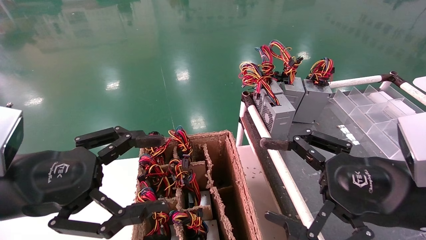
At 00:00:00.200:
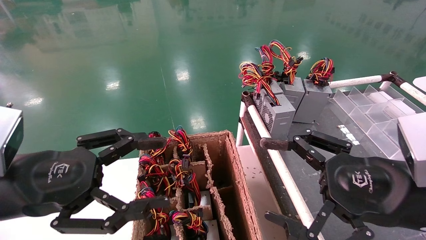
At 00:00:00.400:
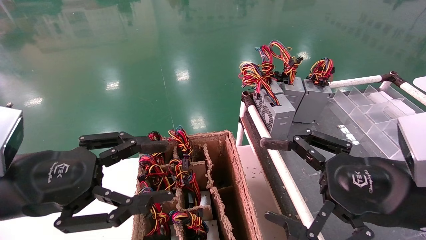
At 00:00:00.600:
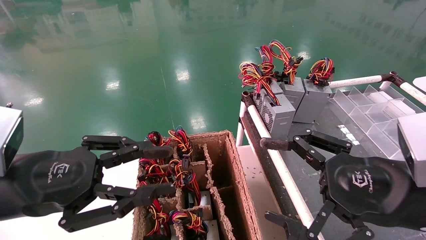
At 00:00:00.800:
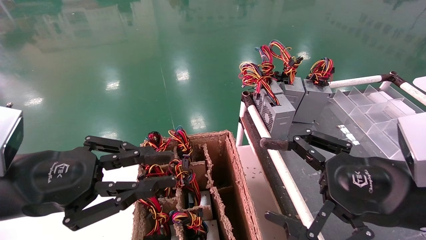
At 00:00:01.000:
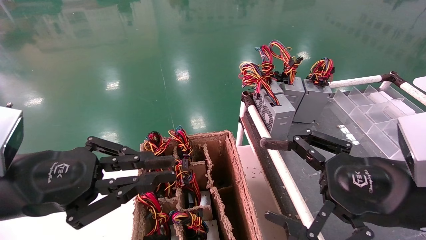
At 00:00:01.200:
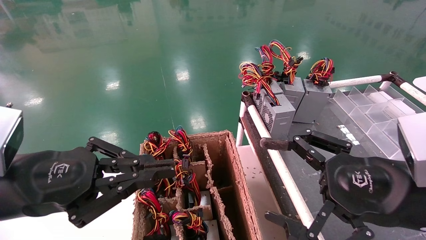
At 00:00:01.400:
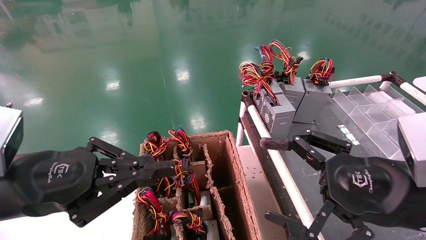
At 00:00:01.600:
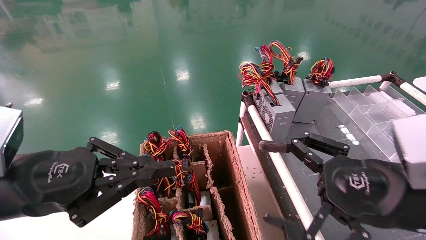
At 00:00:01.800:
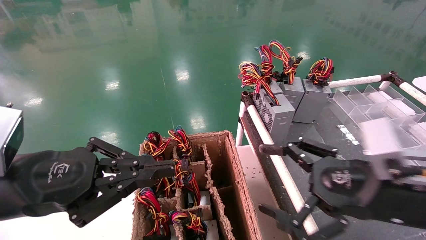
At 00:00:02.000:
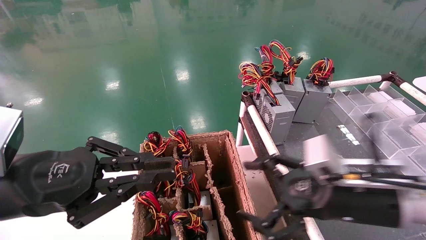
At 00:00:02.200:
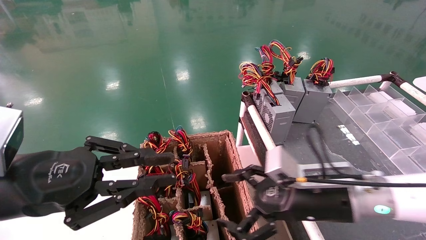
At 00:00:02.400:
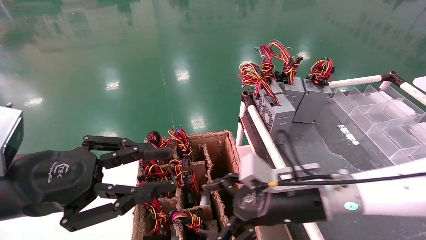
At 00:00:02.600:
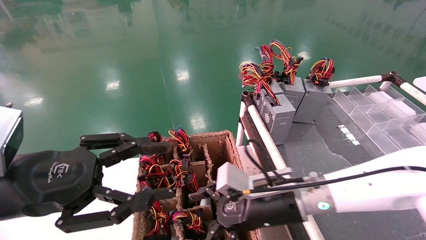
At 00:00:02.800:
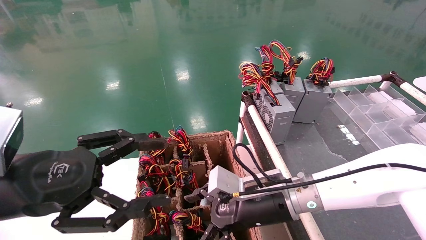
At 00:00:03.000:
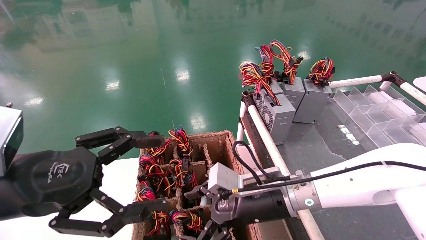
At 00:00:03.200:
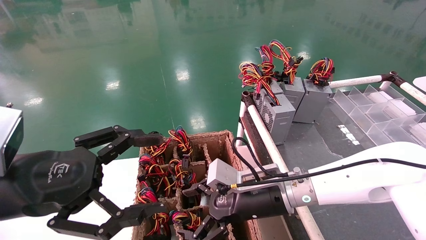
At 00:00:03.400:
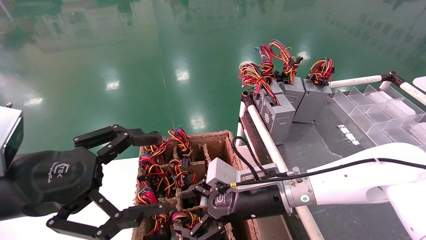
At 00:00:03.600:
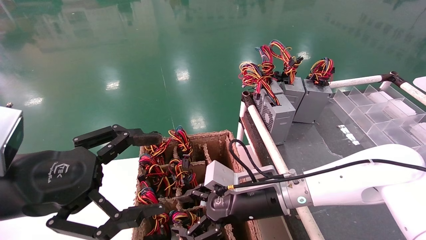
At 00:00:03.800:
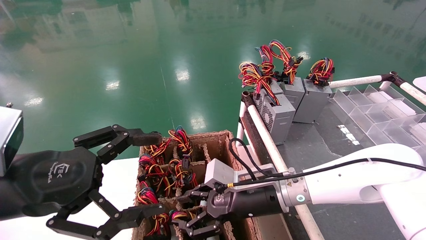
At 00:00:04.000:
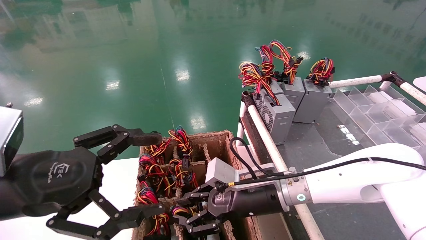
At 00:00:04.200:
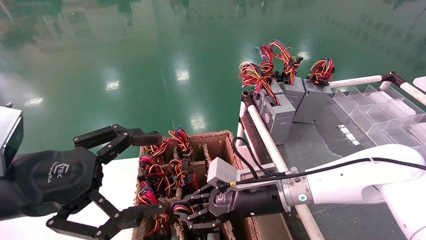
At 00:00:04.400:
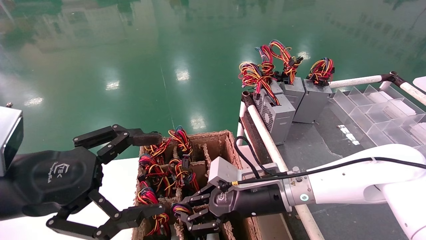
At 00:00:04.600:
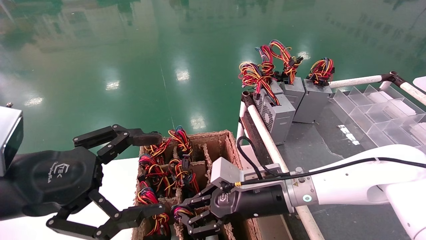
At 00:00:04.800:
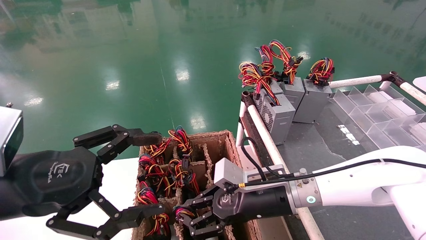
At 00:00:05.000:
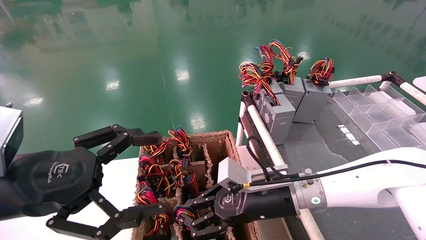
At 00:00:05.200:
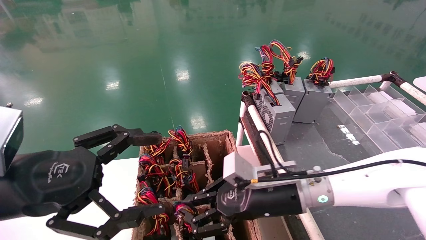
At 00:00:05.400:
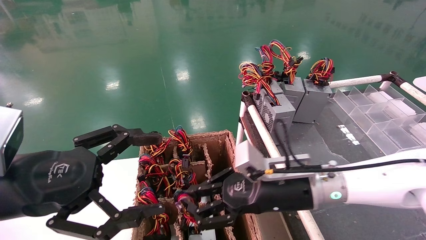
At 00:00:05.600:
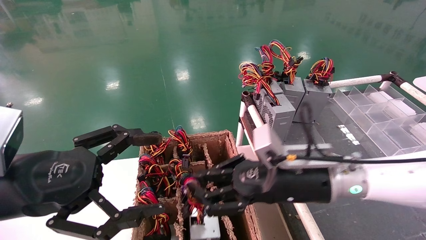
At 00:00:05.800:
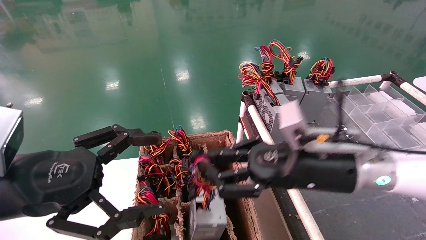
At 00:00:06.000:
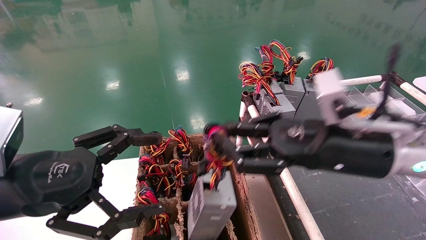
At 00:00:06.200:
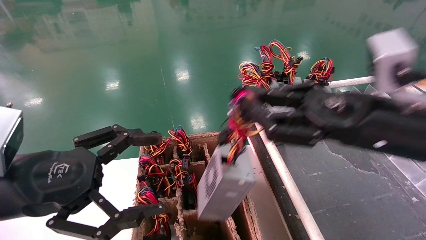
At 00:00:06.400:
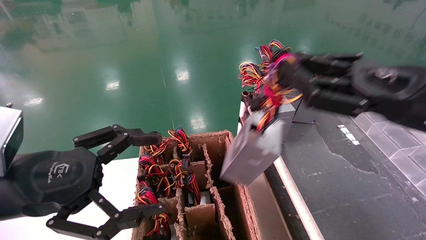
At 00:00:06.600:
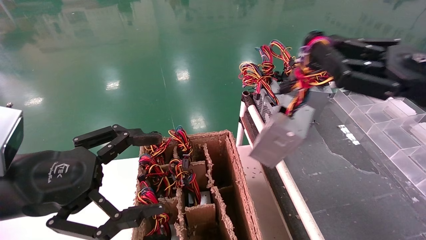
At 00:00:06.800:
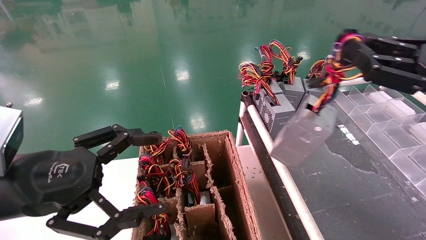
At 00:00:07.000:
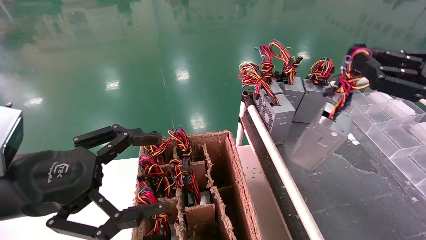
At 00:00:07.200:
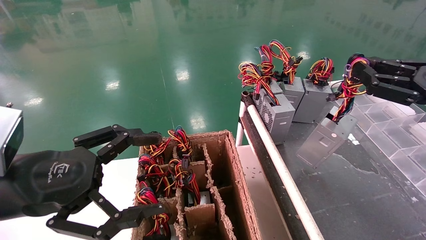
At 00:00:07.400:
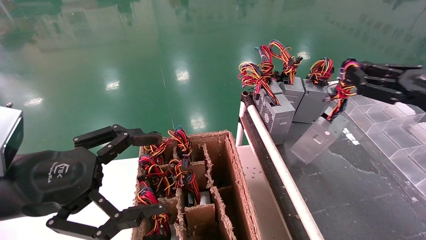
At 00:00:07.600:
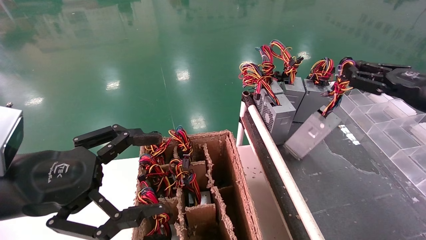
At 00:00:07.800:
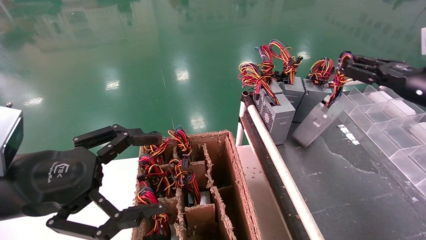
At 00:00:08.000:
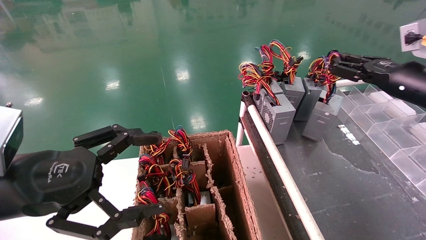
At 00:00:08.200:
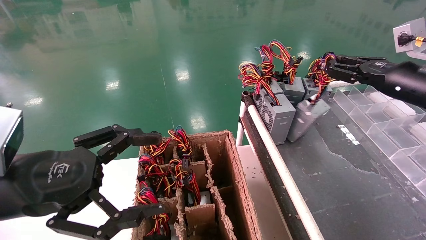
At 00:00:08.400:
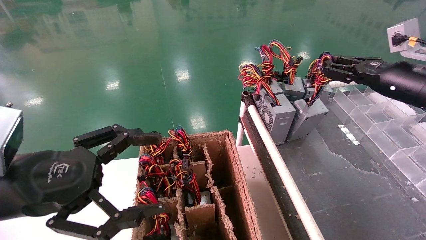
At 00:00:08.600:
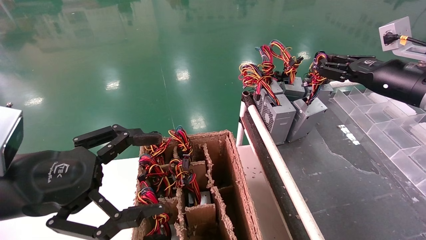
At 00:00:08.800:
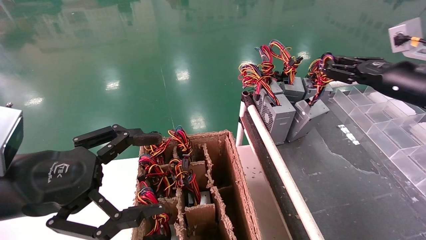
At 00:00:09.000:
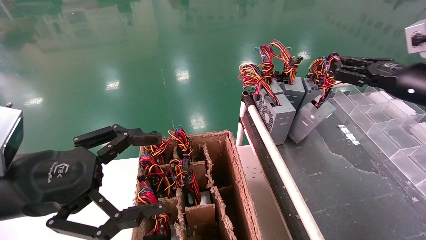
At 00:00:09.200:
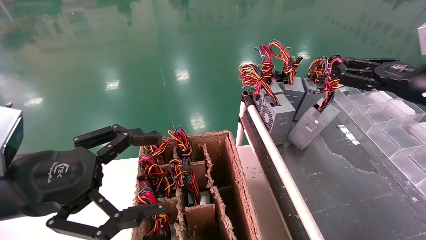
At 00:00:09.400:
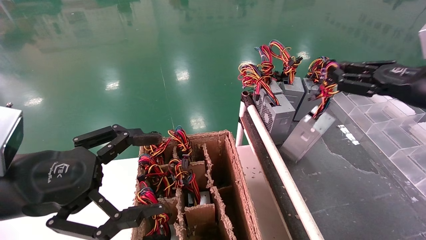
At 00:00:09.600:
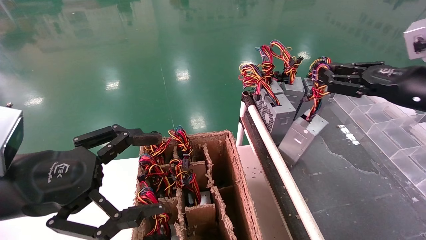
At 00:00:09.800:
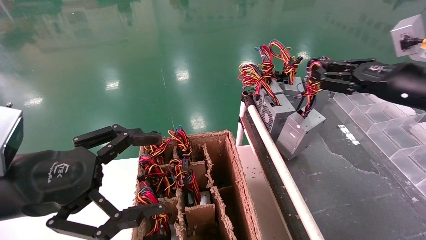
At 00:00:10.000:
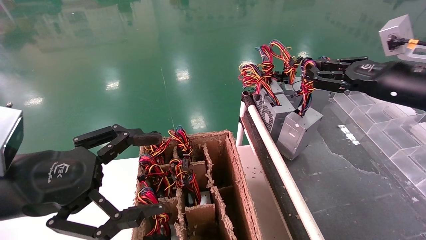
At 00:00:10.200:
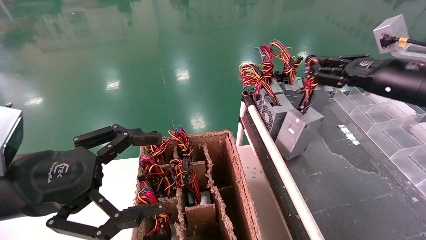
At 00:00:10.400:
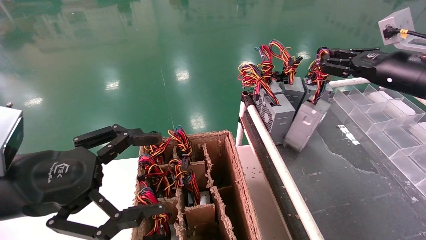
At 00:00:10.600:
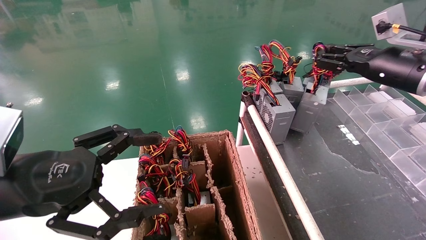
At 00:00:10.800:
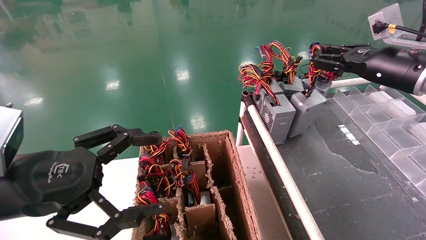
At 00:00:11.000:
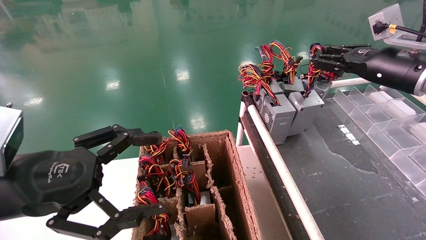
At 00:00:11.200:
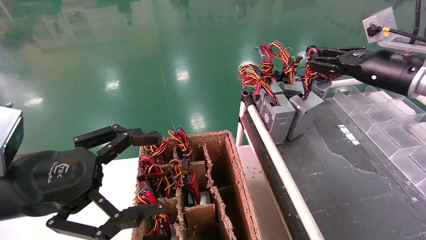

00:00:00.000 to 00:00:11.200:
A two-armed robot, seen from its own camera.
Step, 00:00:01.600 to 00:00:04.600: Grab and lift the power supply from the large box.
00:00:00.000 to 00:00:01.600: The left gripper closes its fingers.
00:00:01.600 to 00:00:03.200: The right gripper goes approximately 20 cm to the left, forward and downward. The left gripper opens up.
00:00:03.200 to 00:00:04.800: The right gripper closes up.
00:00:04.800 to 00:00:06.400: The right gripper goes approximately 25 cm upward, to the right and backward.
00:00:06.400 to 00:00:08.000: The right gripper travels forward and to the right by some 15 cm.
00:00:08.000 to 00:00:09.600: The grippers make only small movements.
00:00:09.600 to 00:00:11.200: The right gripper moves forward, about 5 cm.

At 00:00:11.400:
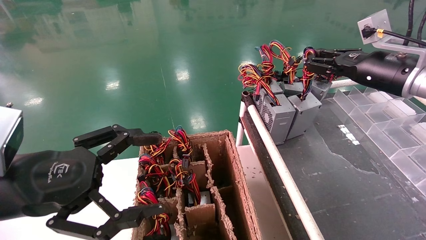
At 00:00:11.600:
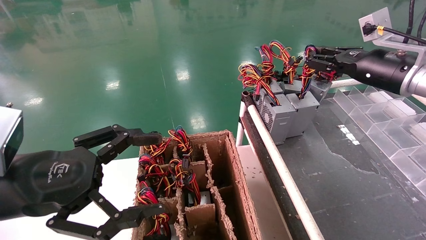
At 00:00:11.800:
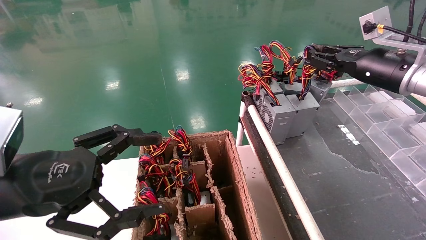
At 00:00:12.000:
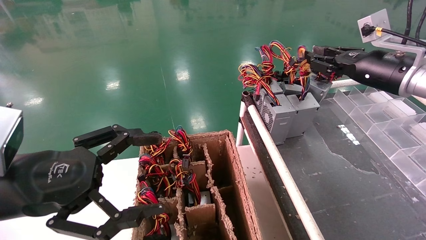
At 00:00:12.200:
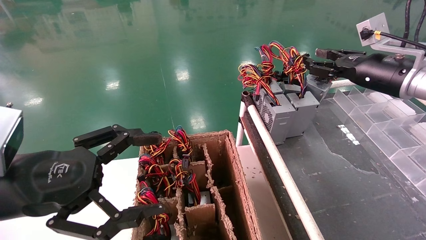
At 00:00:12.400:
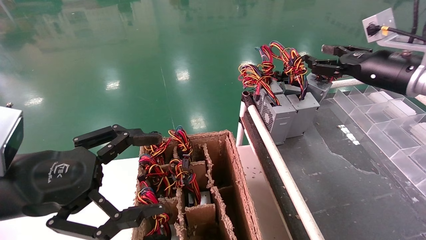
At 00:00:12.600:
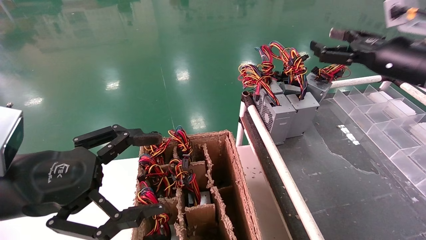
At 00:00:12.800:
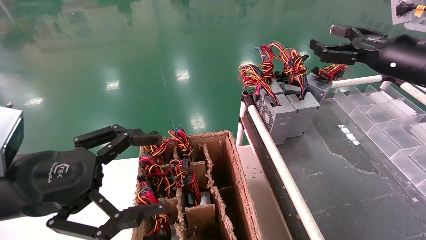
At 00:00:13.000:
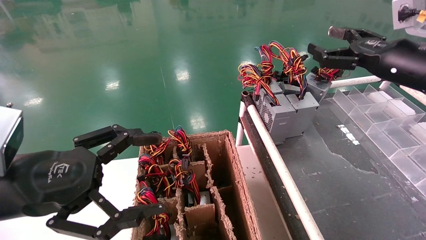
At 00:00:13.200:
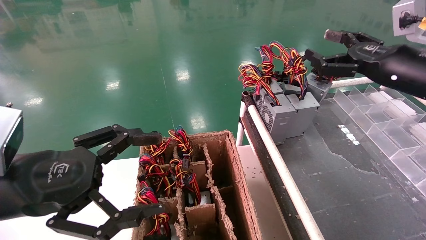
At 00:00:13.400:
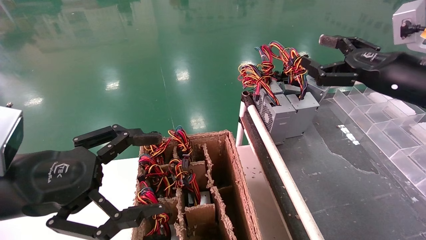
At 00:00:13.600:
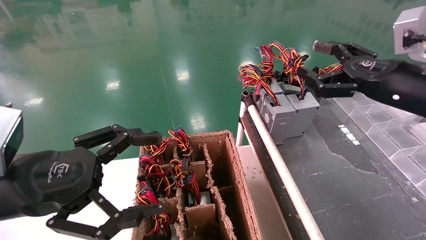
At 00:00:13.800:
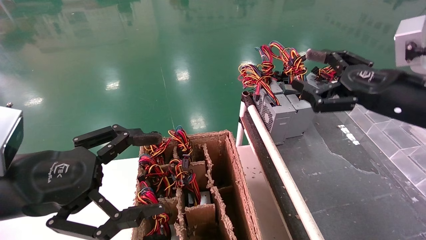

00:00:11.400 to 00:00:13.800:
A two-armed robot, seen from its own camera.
00:00:11.400 to 00:00:12.600: The right gripper opens up.
00:00:12.600 to 00:00:13.800: The right gripper moves backward, roughly 10 cm, and opens its fingers.
